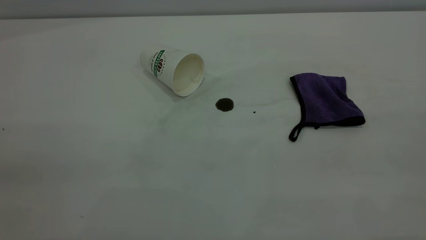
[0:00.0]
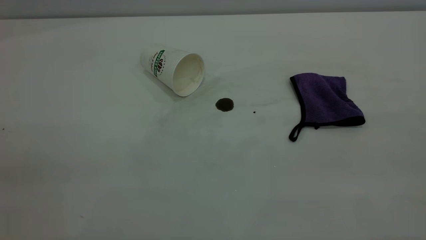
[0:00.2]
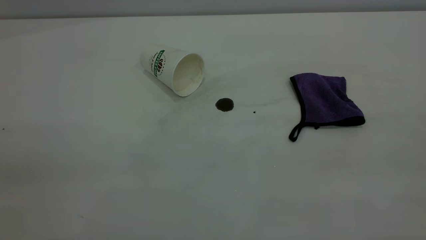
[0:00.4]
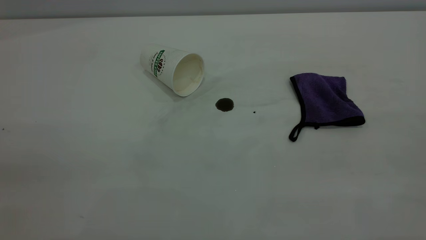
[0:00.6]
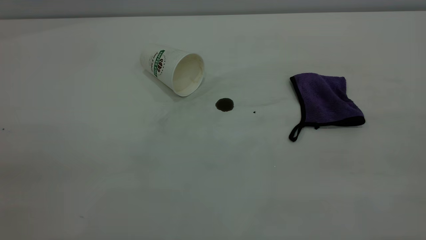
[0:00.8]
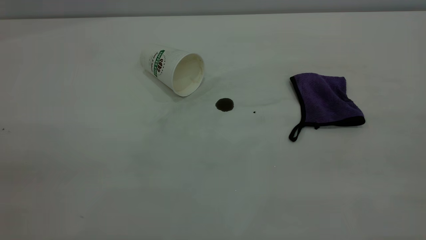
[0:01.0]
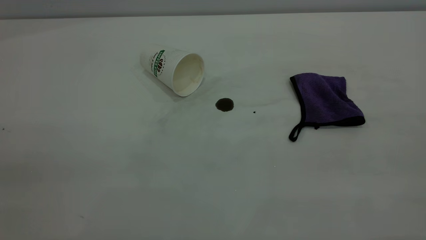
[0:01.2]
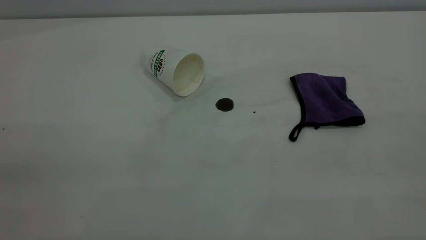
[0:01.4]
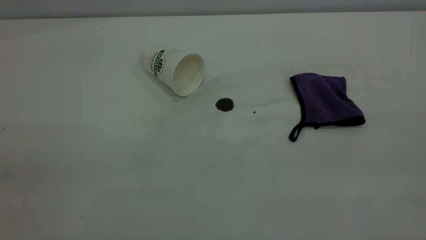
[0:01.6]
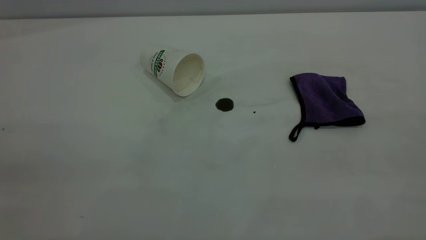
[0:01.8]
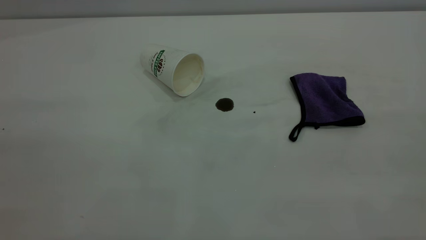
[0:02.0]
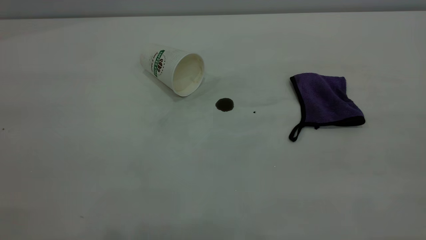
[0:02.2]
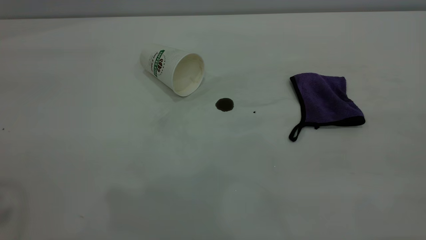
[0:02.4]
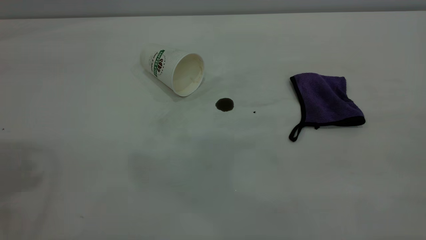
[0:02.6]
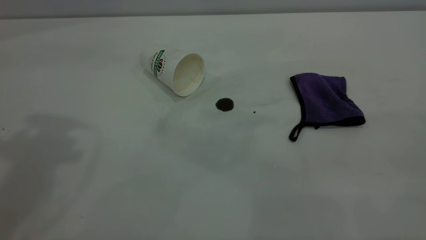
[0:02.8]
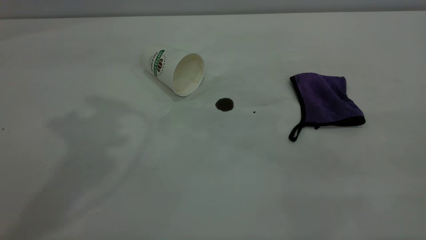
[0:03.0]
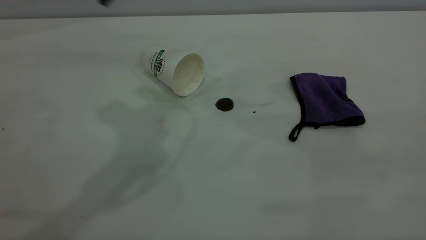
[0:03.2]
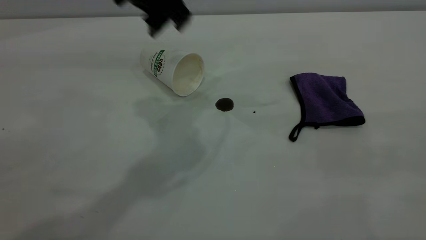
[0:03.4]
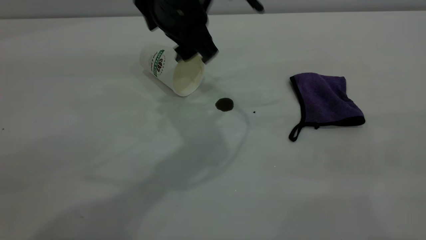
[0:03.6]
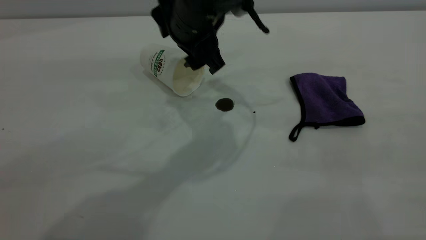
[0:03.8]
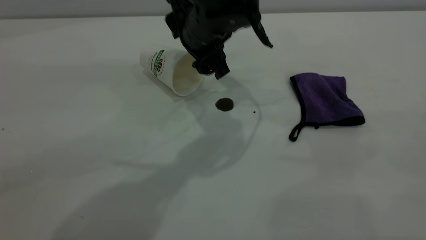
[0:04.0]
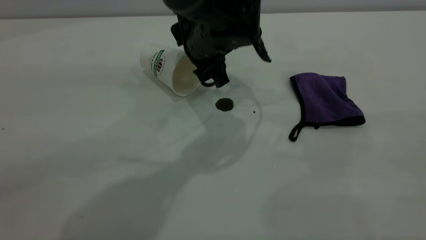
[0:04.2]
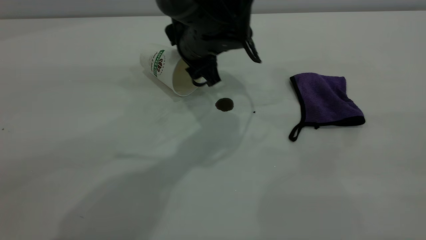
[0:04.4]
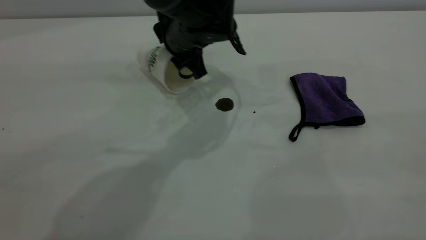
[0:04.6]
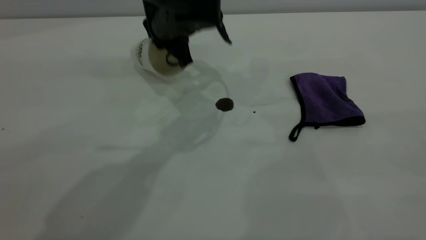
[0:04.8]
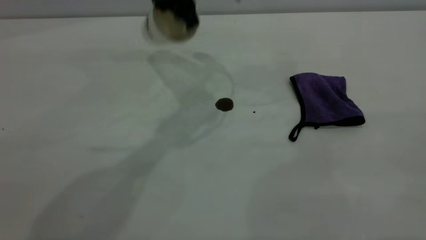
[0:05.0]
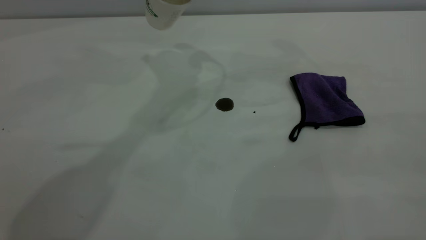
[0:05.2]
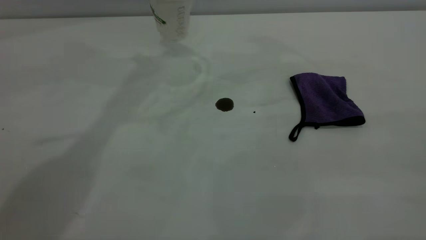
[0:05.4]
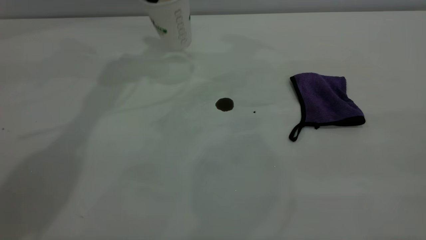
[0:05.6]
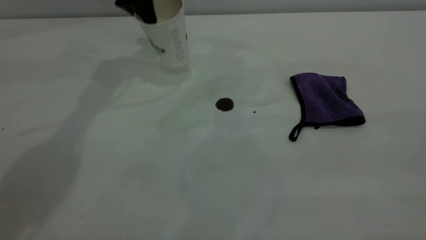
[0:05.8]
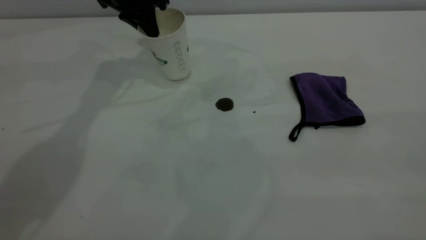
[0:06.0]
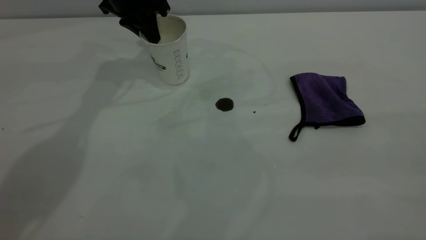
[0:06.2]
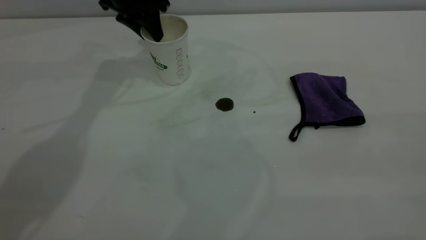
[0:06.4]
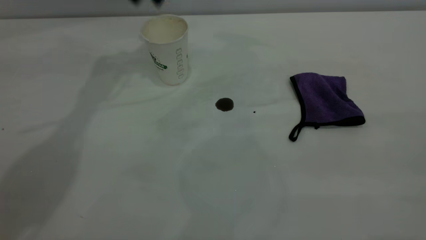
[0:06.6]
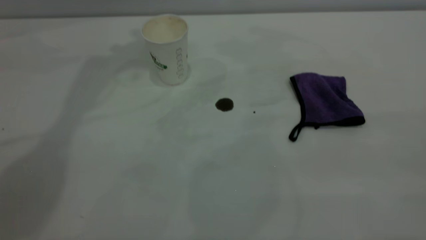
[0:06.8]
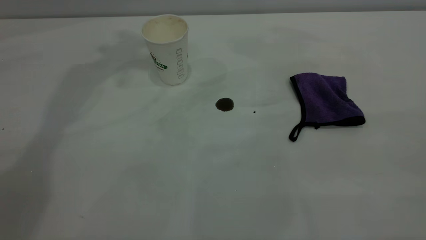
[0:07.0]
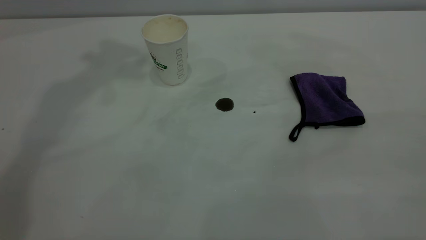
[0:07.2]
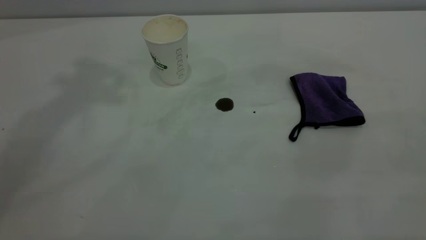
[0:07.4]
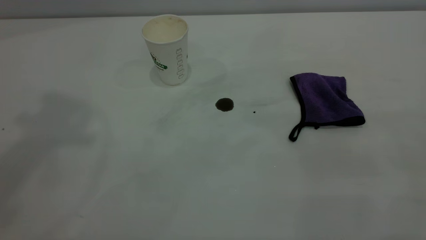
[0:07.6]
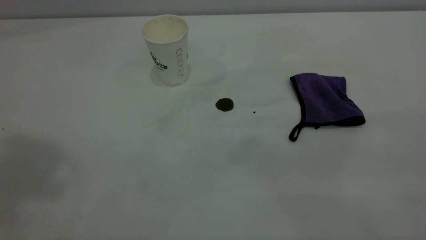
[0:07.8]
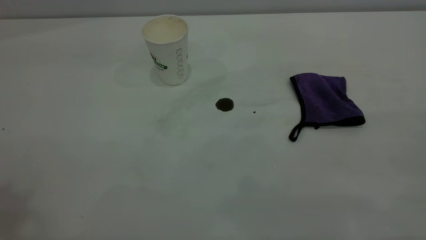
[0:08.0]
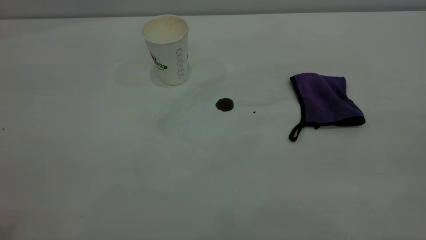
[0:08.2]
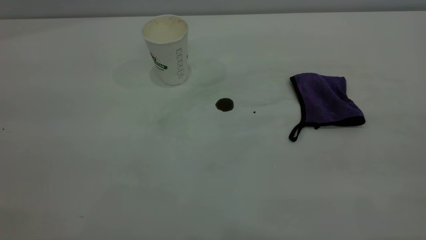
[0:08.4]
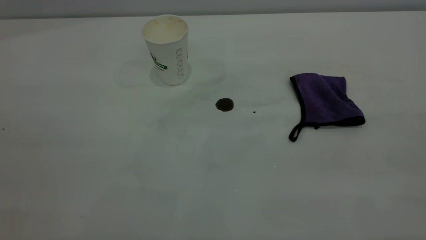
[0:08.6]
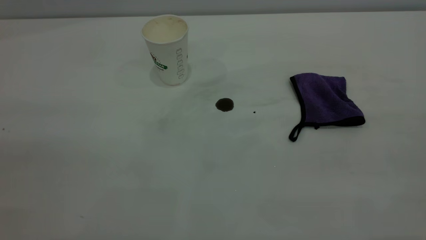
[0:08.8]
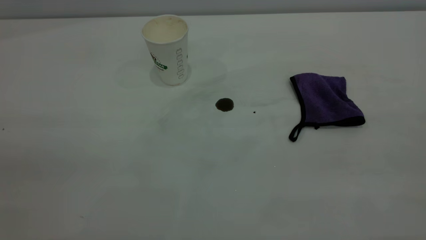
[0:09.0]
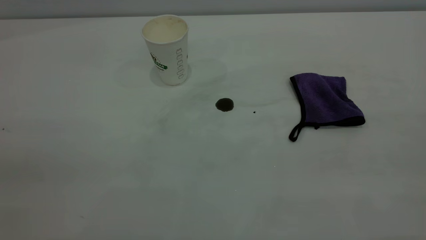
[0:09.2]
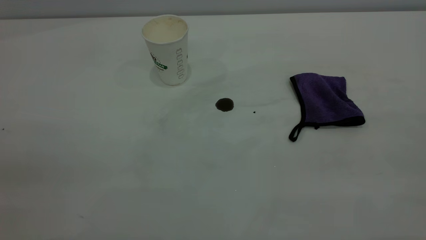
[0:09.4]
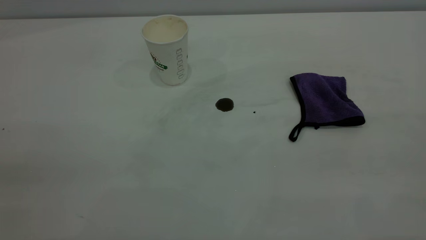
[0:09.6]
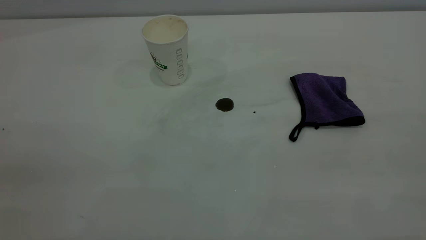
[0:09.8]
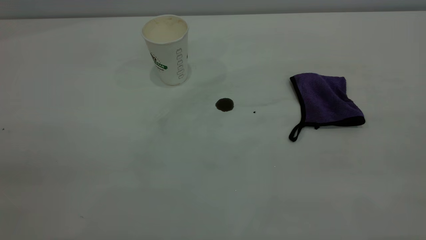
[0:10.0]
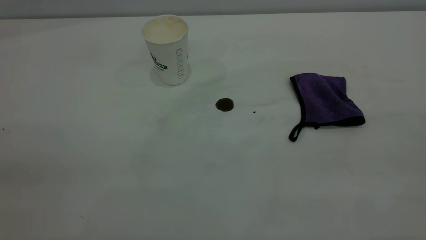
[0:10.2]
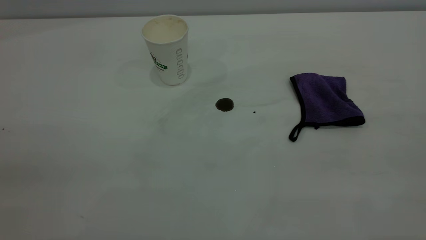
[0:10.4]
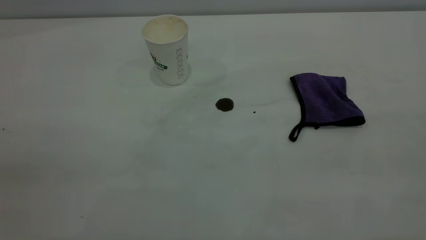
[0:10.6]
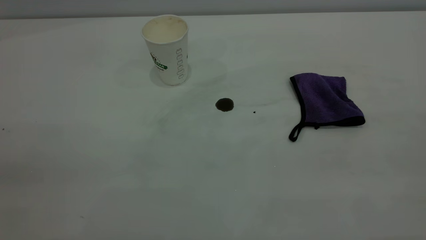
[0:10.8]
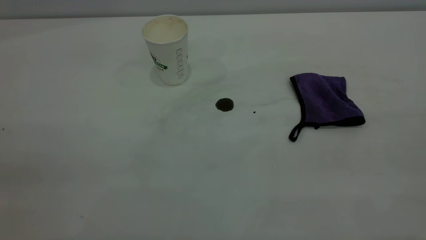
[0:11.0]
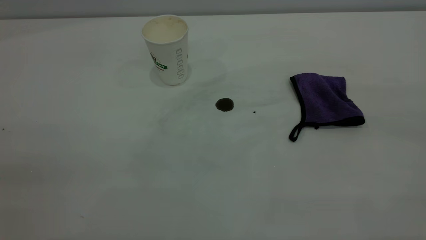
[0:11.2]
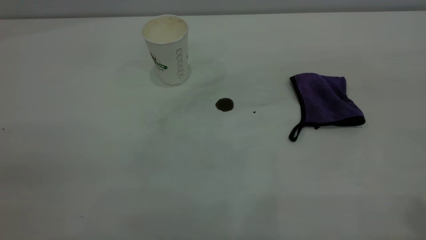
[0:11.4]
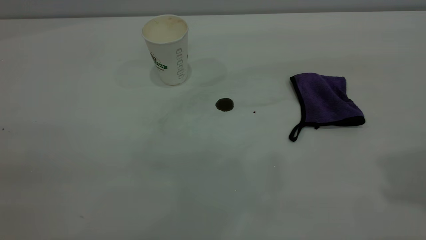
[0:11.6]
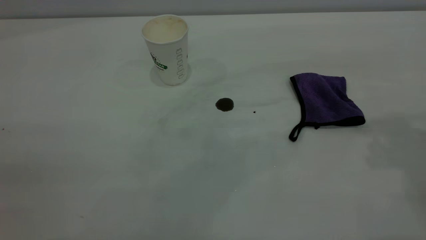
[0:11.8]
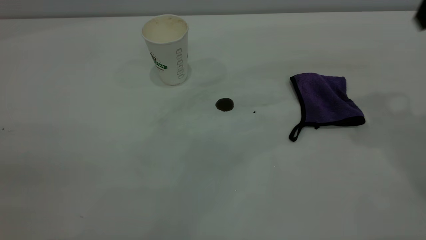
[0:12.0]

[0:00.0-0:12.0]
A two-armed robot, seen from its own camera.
Task of the whole recording: the left gripper pick up the fallen cup and place it upright, the right gripper grasp the purple rag and wipe the coffee stain on the table, the right gripper put the purple rag back in its original position.
Step, 0:00.0 to 0:06.4: Stand the paper cup upright.
0:00.0 to 0:01.6: Both grippers stay about where they are.
0:03.0 to 0:04.4: The left gripper heads downward and to the right, covering some 30 cm.
0:04.4 to 0:06.0: The left gripper is displaced to the left, forward and upward by approximately 20 cm, and closes.
0:06.0 to 0:07.6: The left gripper is displaced upward and backward by roughly 40 cm, and opens up.

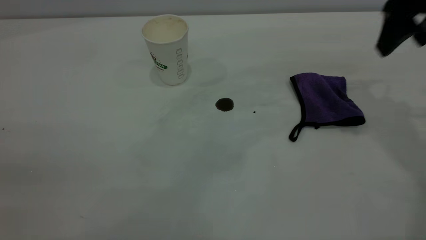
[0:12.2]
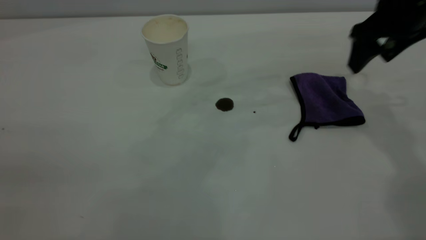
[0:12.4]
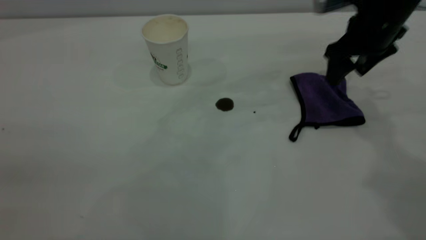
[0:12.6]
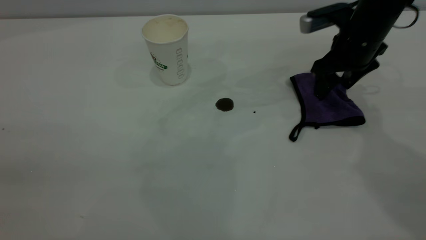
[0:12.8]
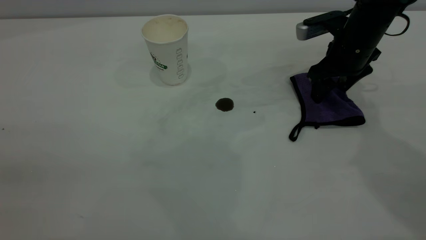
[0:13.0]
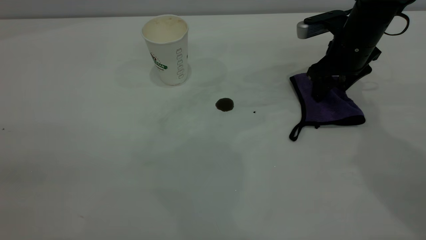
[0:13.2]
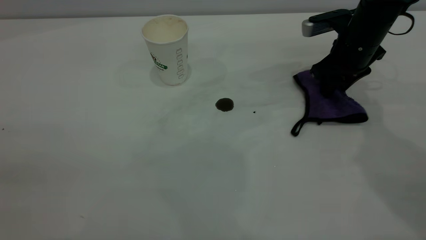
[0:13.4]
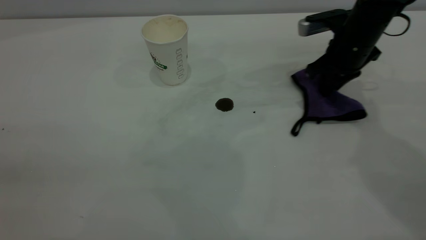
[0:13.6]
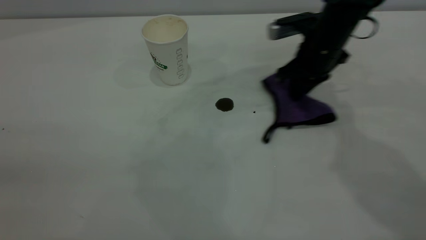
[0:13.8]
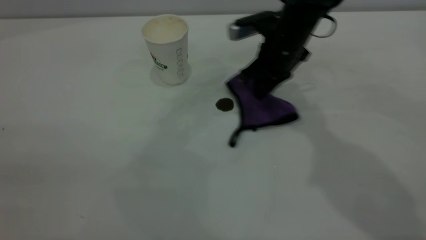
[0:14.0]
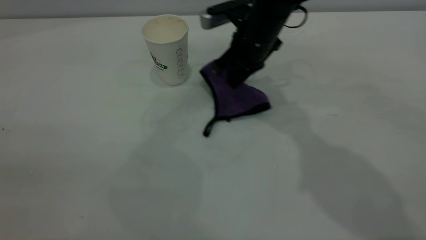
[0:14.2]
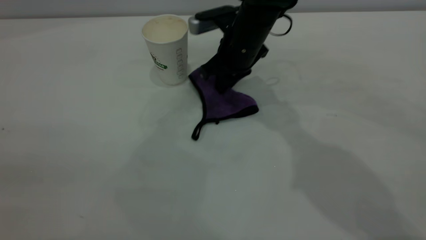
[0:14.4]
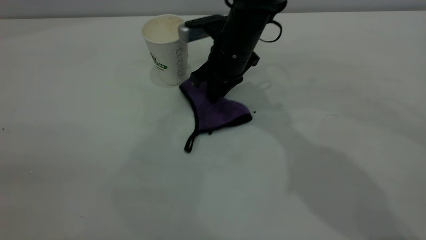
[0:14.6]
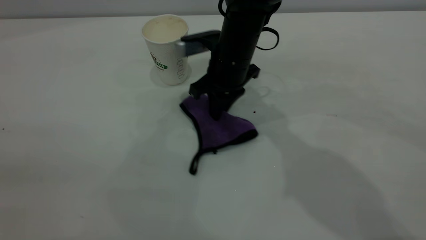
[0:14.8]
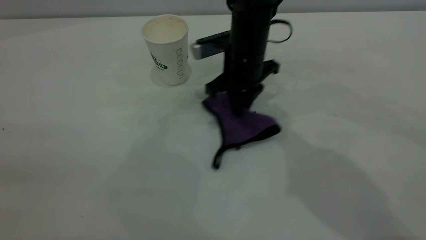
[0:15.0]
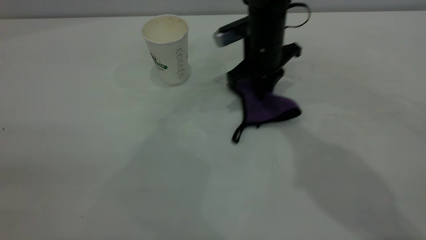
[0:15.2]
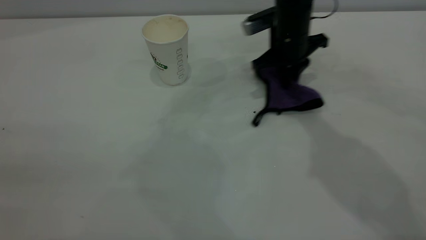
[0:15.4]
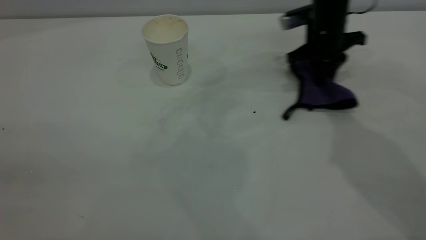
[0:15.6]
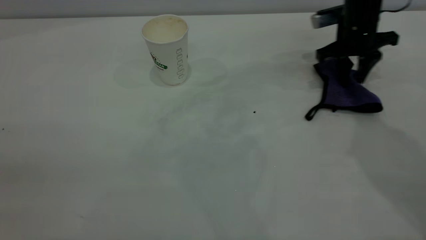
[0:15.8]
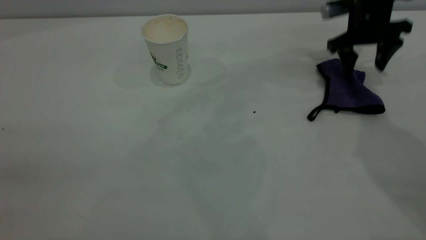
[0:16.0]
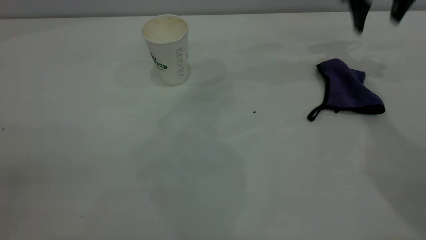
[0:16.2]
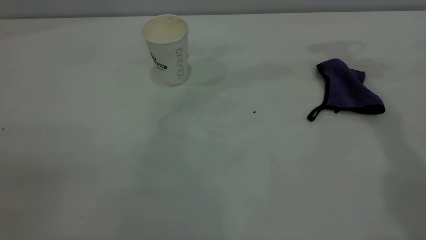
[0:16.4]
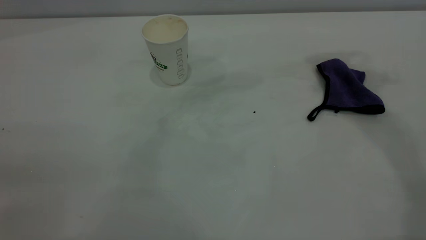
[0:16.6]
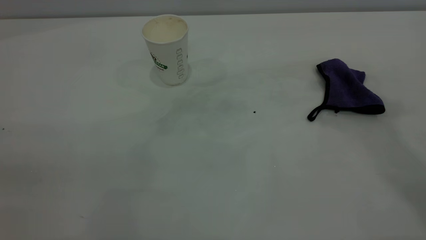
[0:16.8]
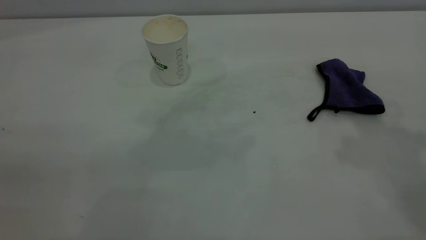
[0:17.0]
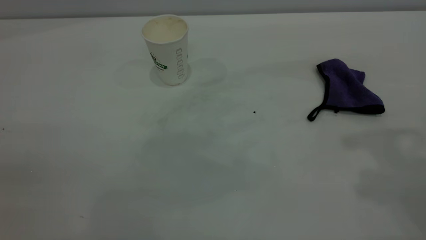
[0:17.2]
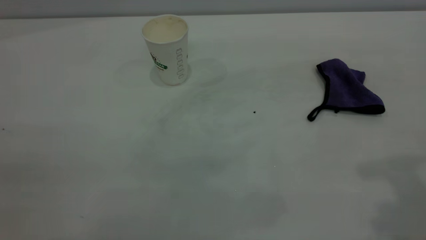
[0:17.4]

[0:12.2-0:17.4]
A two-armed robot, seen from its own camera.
Task of the whole recording: the left gripper pick up the fallen cup and place it upright, the right gripper grasp the purple rag and wipe the coffee stain on the table, the right gripper put the purple rag back in its original position.
Step, 0:12.2 to 0:16.0: Wipe the stains off the table with a rag.
0:12.2 to 0:14.0: The right gripper is displaced to the left and downward by approximately 20 cm, and closes its fingers.
0:14.0 to 0:15.6: The right gripper goes some 10 cm to the right.
0:15.6 to 0:17.4: The right gripper goes approximately 40 cm backward and upward, and opens.
